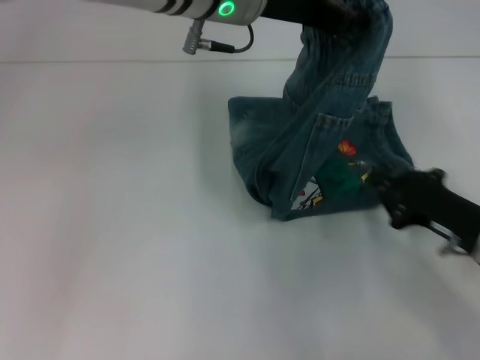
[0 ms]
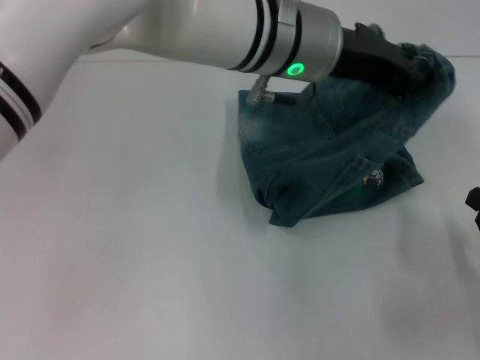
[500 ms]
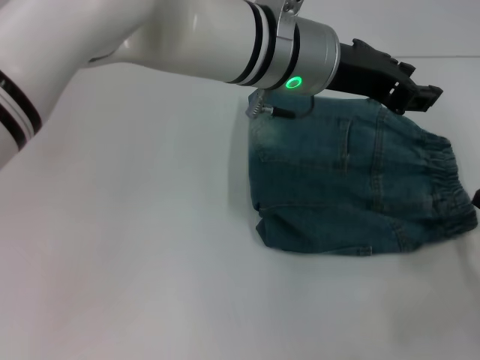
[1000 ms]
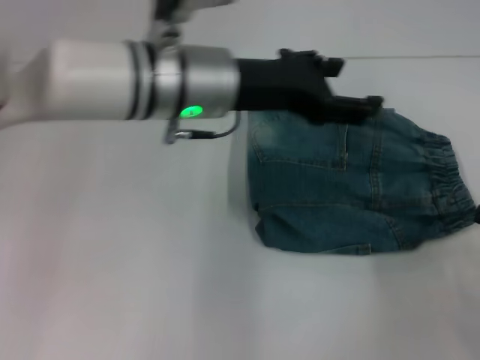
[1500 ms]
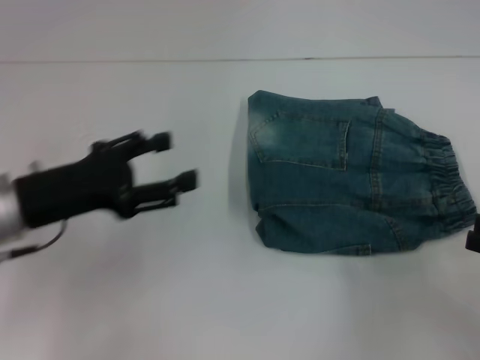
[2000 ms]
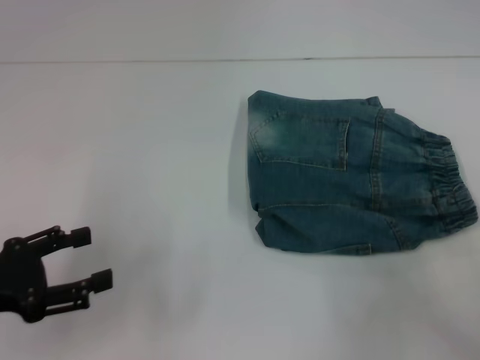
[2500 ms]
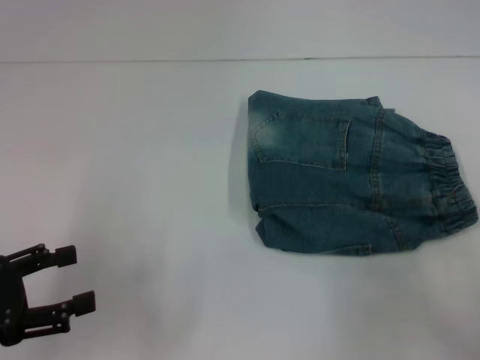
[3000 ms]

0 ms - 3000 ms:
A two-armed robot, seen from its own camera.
0 ms - 1500 ms: The right gripper moves to the right and backward, some 10 cm. Meanwhile the left gripper is displaced downward by roughly 5 cm, and opens its fingers.
1500 ms - 3000 ms: The right gripper heads upward, covering some 5 cm, and opens its fingers, while the left gripper heads to the left and backward, covering approximately 30 cm.

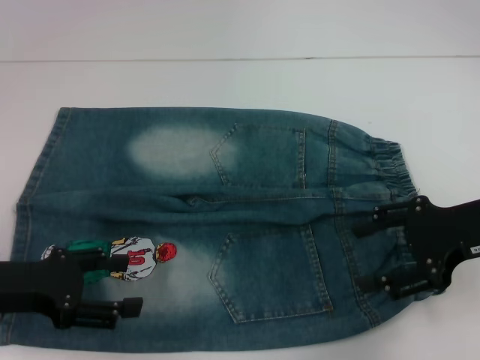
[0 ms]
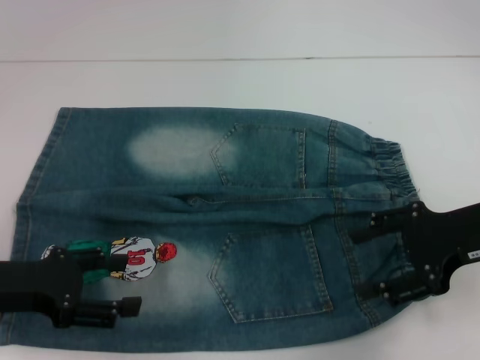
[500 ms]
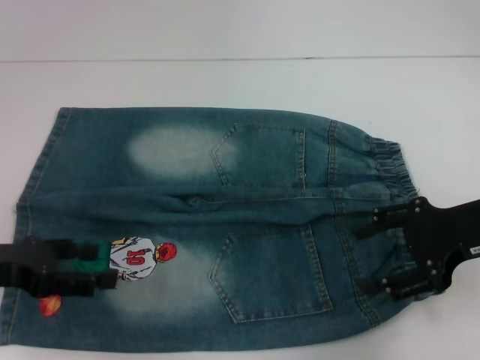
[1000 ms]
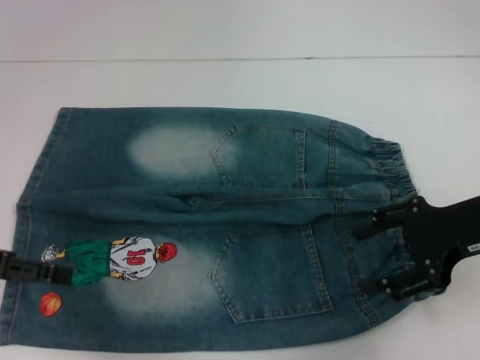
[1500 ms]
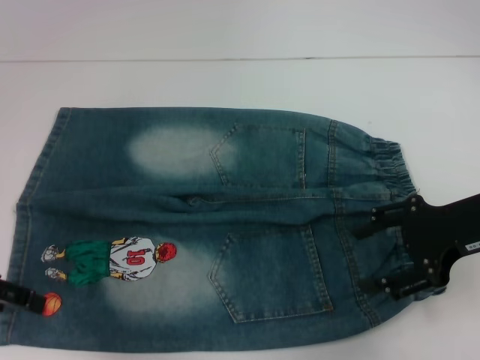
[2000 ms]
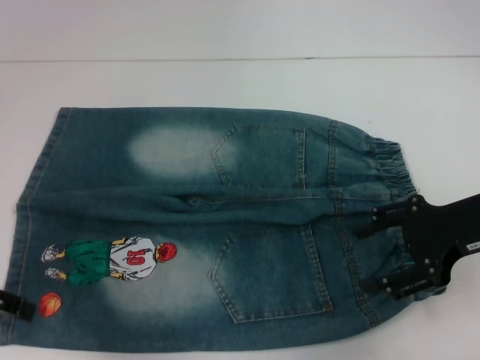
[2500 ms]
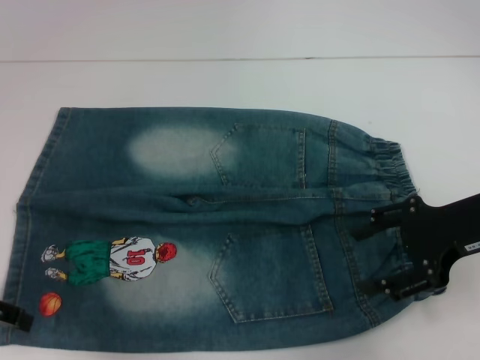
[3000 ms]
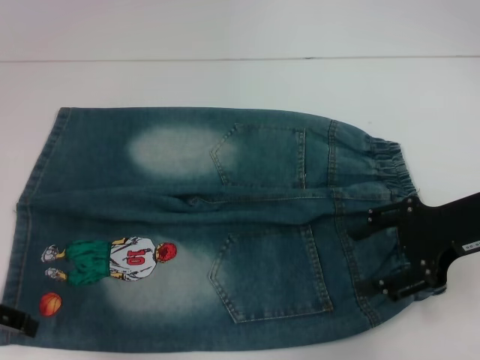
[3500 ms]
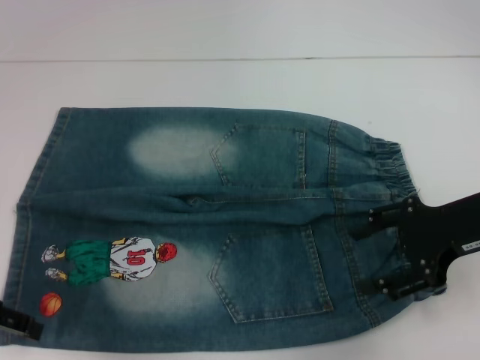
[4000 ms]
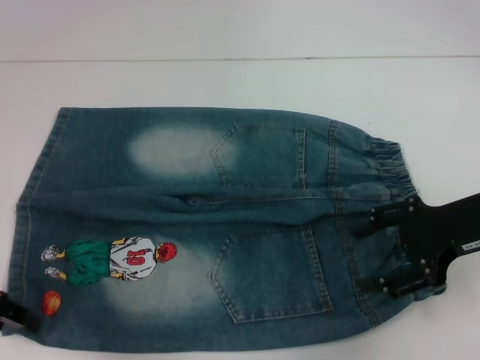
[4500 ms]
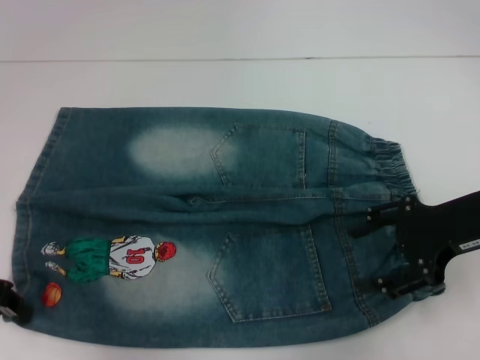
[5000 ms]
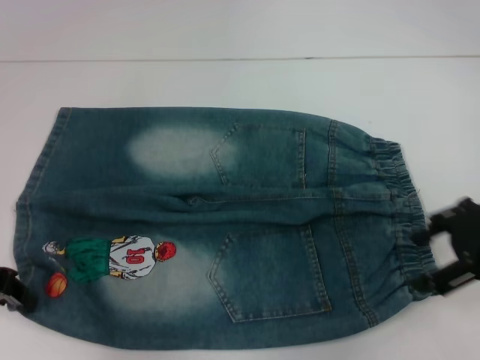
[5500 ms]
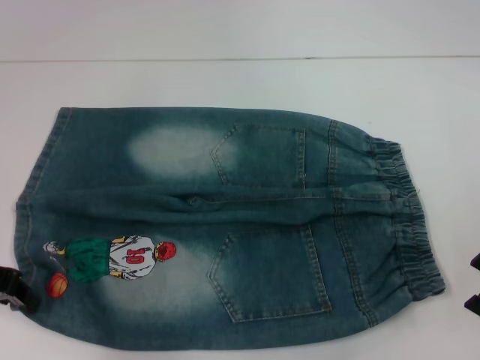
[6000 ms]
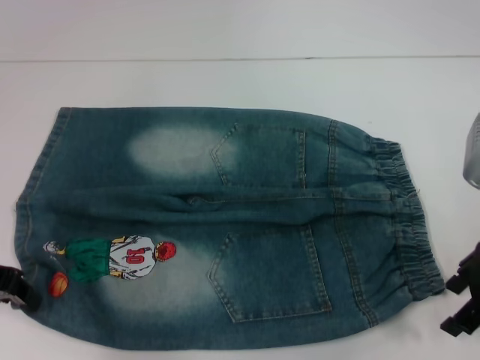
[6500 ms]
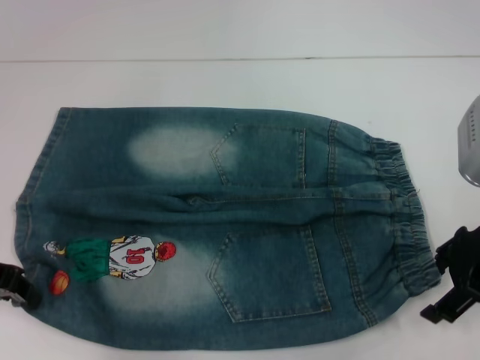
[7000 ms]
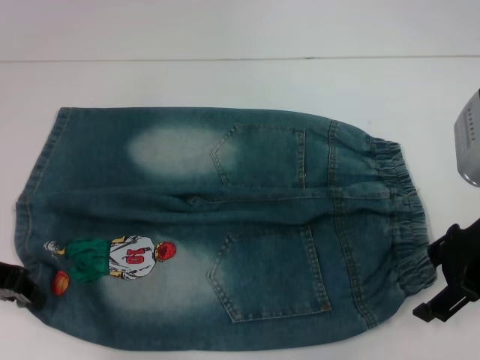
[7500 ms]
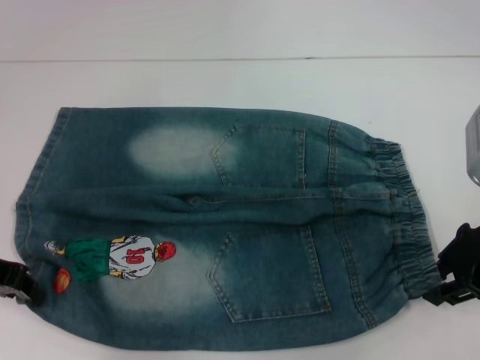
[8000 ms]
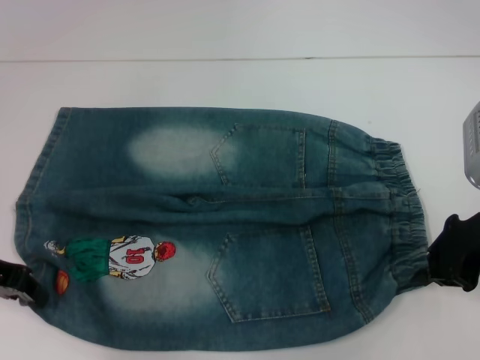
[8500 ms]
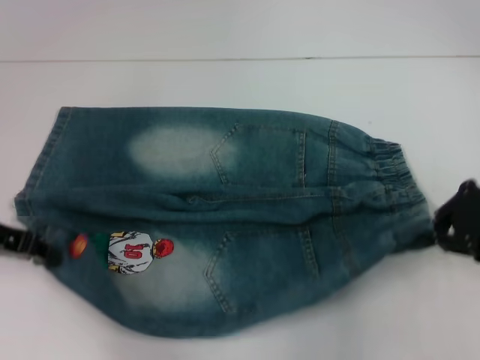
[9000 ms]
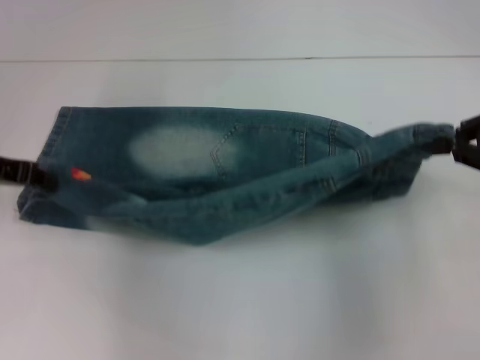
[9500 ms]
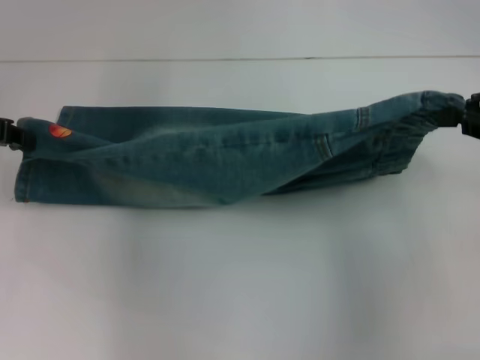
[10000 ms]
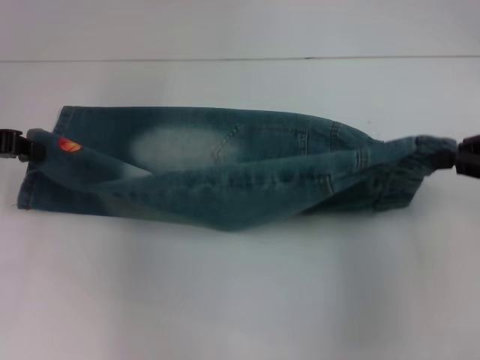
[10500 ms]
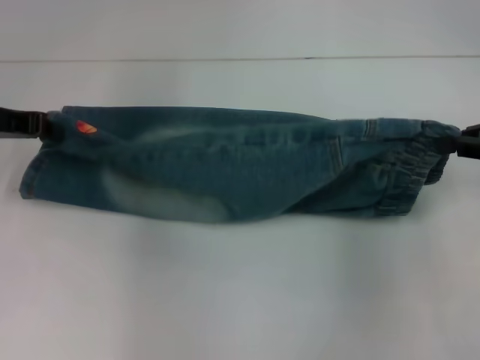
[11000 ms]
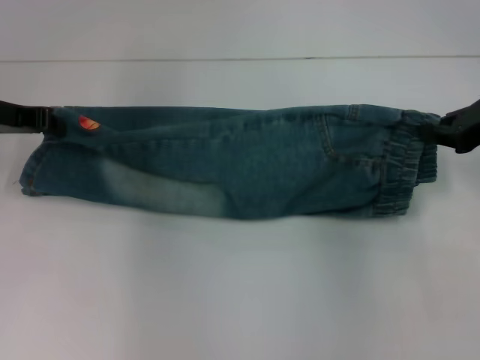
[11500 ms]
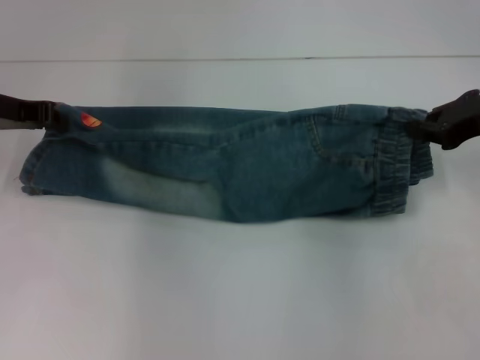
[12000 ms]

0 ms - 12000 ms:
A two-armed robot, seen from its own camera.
Step, 0 ms - 6000 ms: Grab the lower left pant leg with your left hand.
Step, 6500 ms - 8000 ms: Hold the lower right waistband with your right hand.
0 ms - 2000 ms: The left gripper is displaced upward by some 5 cm.
2000 ms - 4000 ms: There are only small adjustments of the grippers.
4000 ms - 6000 ms: The left gripper closes.
6000 ms - 8000 ms: The grippers stay close to where they were, moving slightly.
8000 ms - 10000 ms: The right gripper is displaced upward and to the right by some 10 cm, and closes its fingers. The left gripper moves forward and upward, about 10 cm.
10000 ms - 12000 ms: The right gripper is displaced forward by some 5 cm. Meanwhile the left gripper shifts by approximately 5 cm.

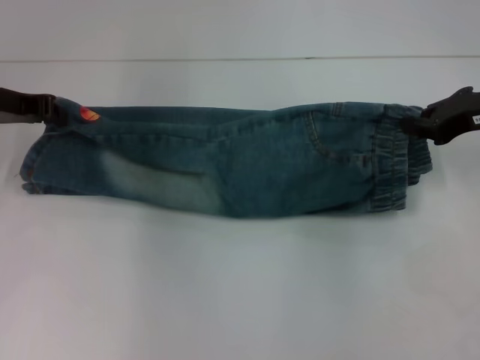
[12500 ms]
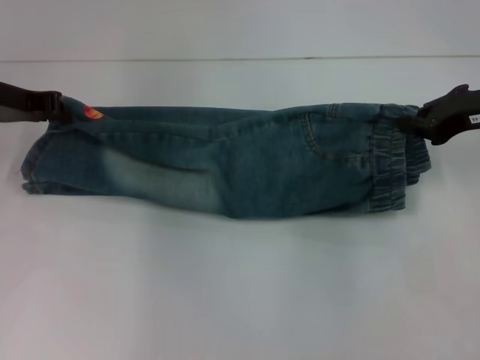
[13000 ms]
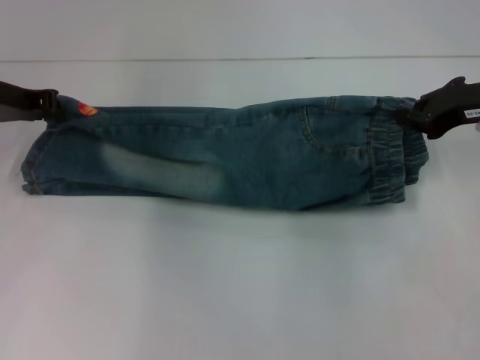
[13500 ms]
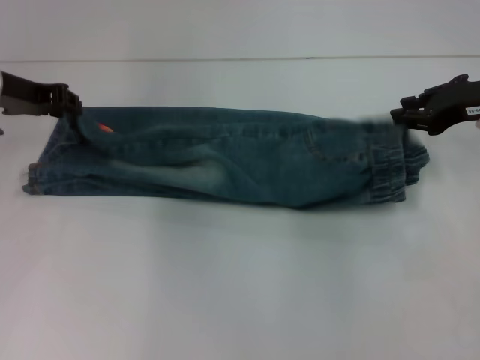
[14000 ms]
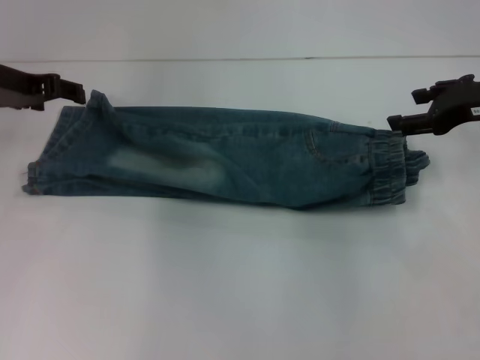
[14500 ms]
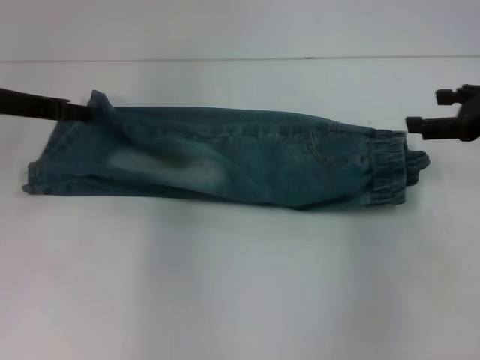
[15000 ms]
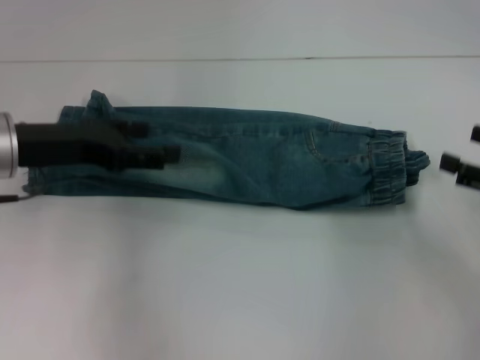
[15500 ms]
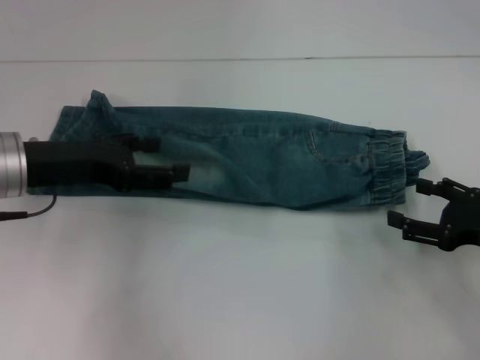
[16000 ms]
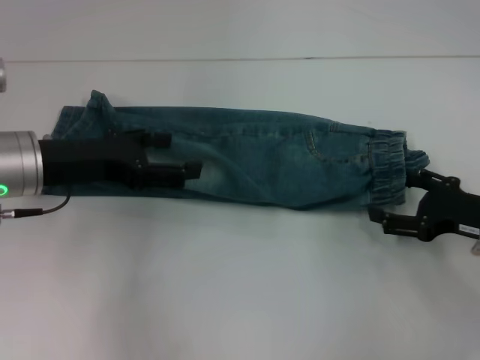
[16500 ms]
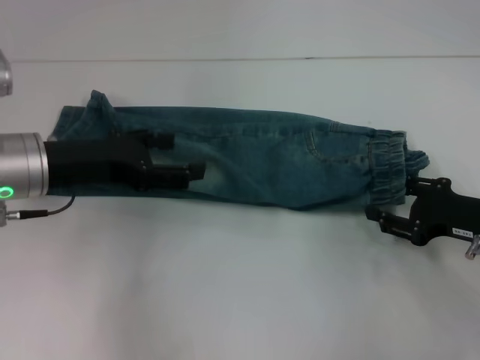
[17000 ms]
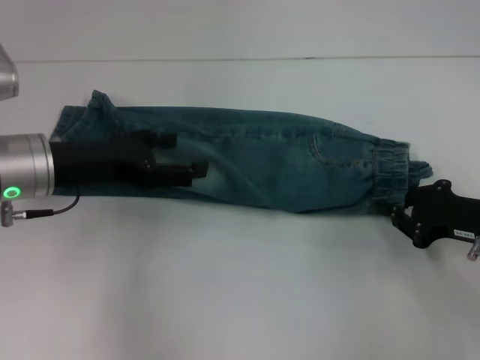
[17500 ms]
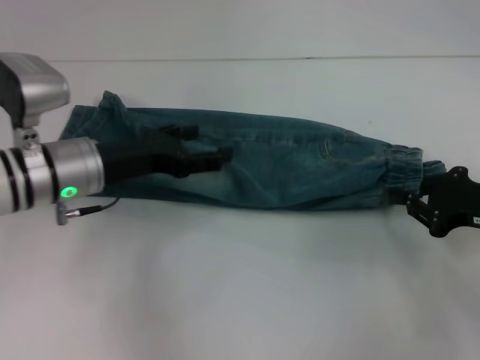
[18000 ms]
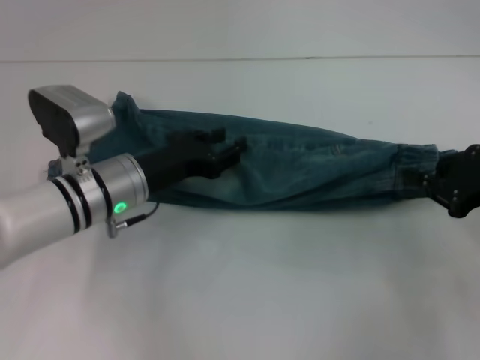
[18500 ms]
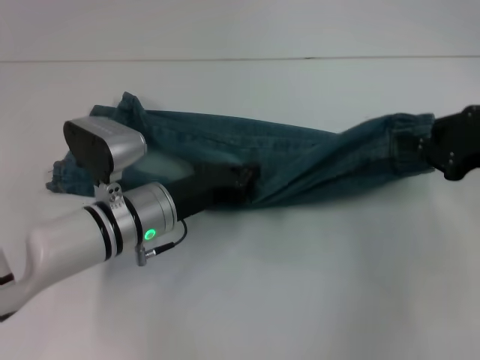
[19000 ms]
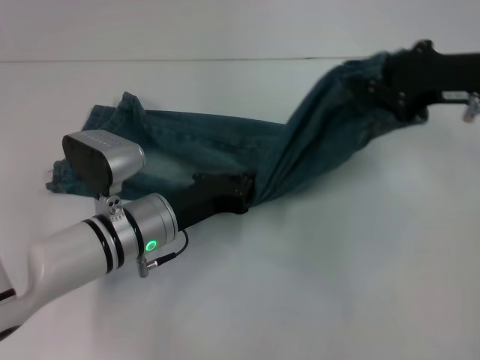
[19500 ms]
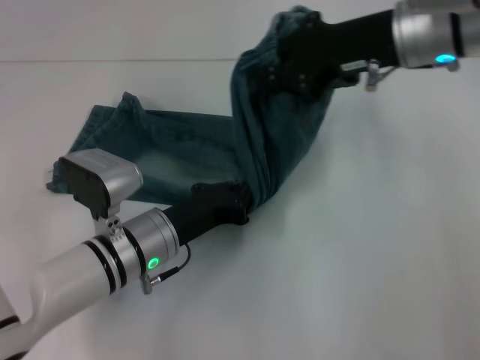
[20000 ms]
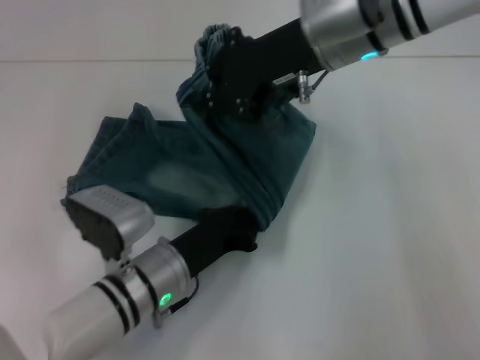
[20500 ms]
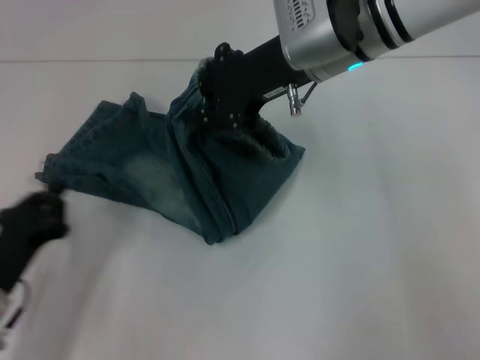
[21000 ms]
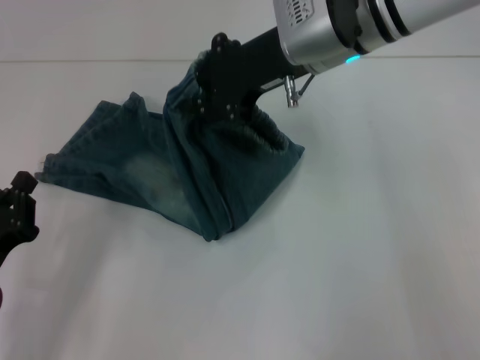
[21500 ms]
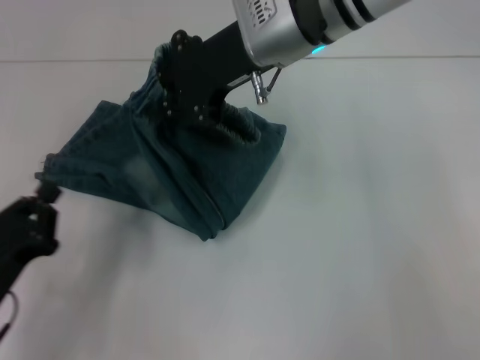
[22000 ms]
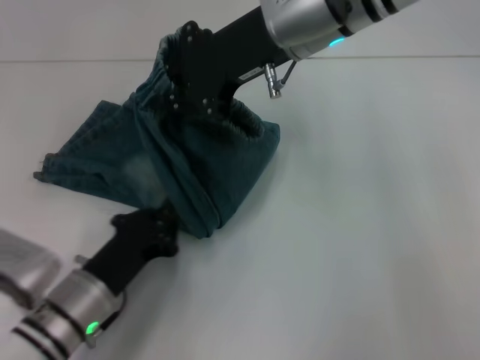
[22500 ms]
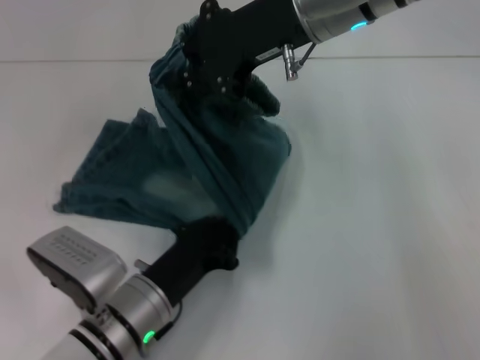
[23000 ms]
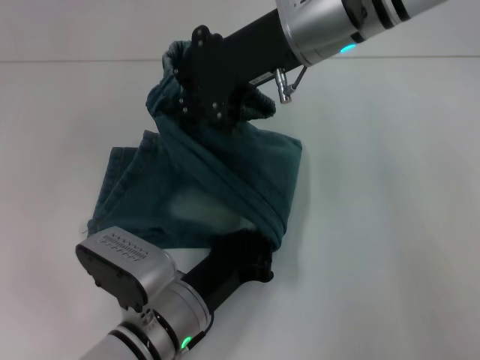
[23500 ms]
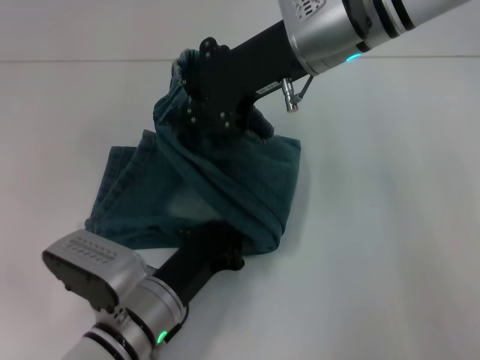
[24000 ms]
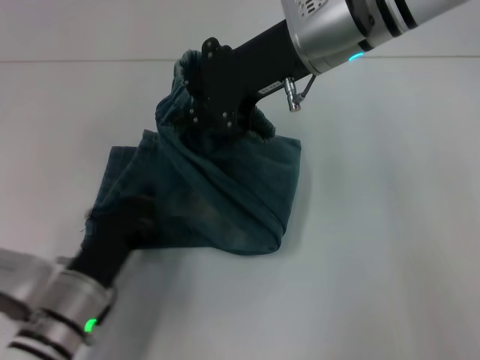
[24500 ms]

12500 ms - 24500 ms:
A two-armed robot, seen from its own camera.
Step, 14500 ms - 18000 ms: Grab the waistband with your right hand.
Step, 18500 ms - 20500 ms: Press the middle of the pants with your left hand.
12500 ms - 14500 ms: The left gripper opens up; the right gripper opens.
14500 ms - 16500 ms: The right gripper goes approximately 15 cm downward and backward. The left gripper goes approximately 10 cm backward.
16500 ms - 18500 ms: The right gripper heads upward, covering roughly 5 cm, and closes up. Meanwhile the left gripper goes roughly 10 cm downward and to the right, and closes up.
18500 ms - 20500 ms: The right gripper moves to the left, forward and upward, about 30 cm, while the left gripper goes roughly 10 cm backward and downward, and closes its fingers.
20500 ms - 22500 ms: The left gripper heads to the left, covering roughly 5 cm.
22500 ms - 24500 ms: The left gripper reaches roughly 10 cm to the right, then returns.
